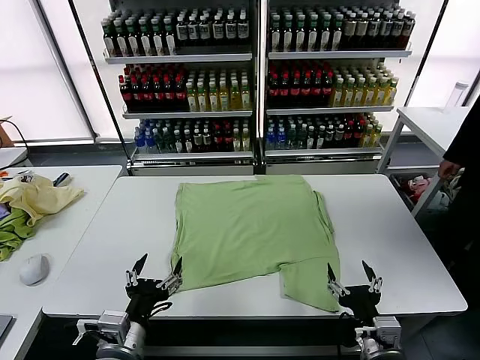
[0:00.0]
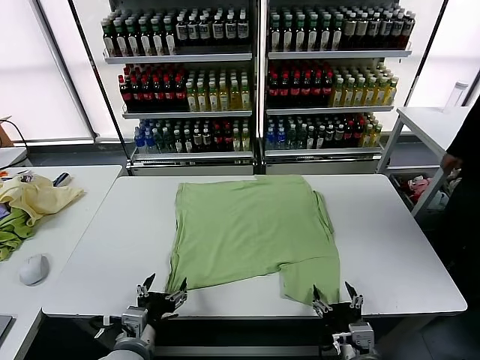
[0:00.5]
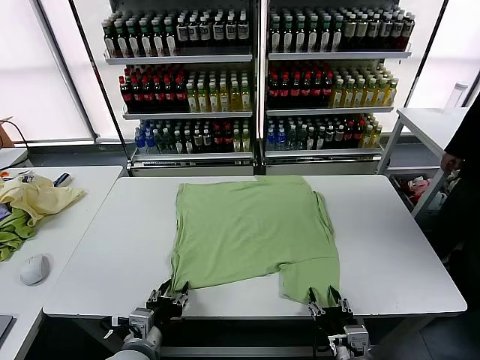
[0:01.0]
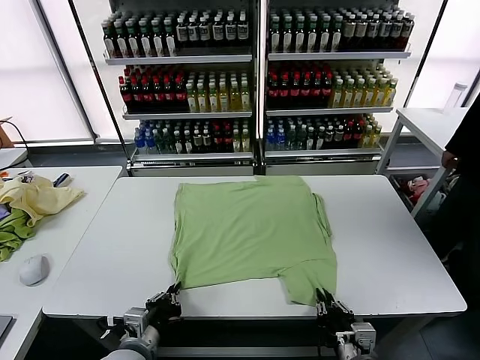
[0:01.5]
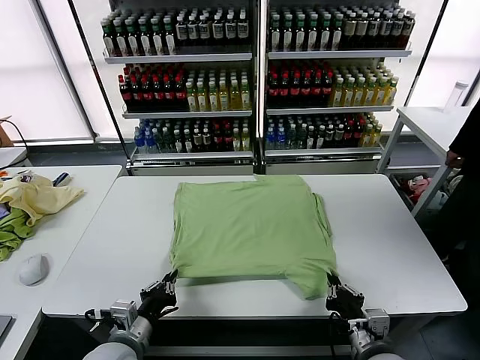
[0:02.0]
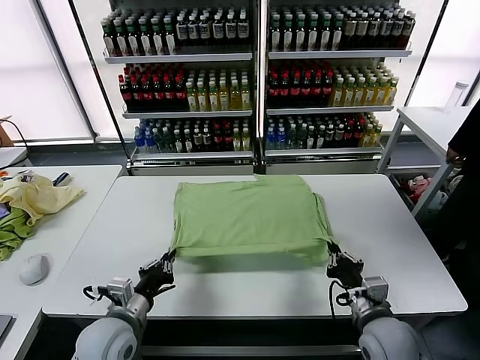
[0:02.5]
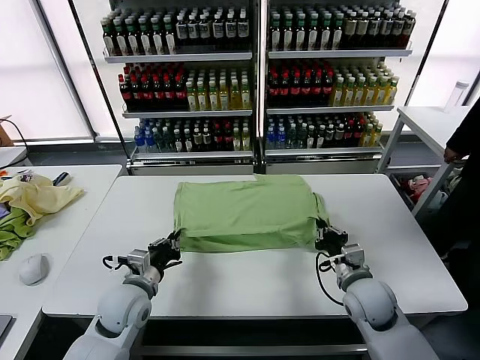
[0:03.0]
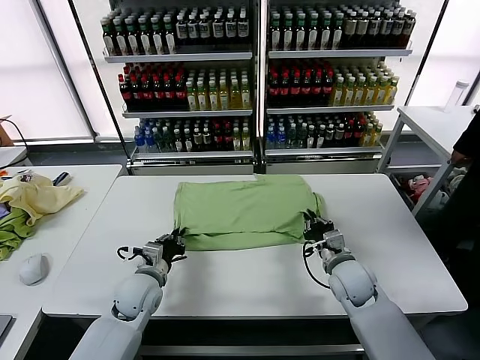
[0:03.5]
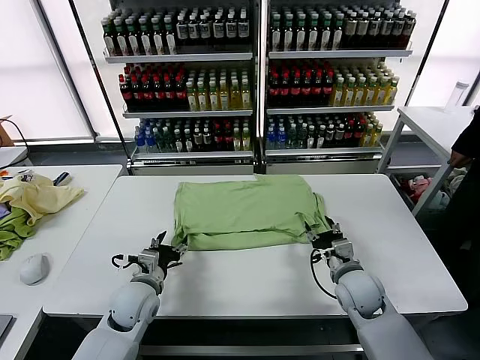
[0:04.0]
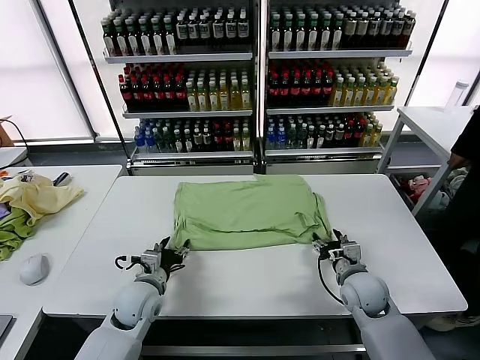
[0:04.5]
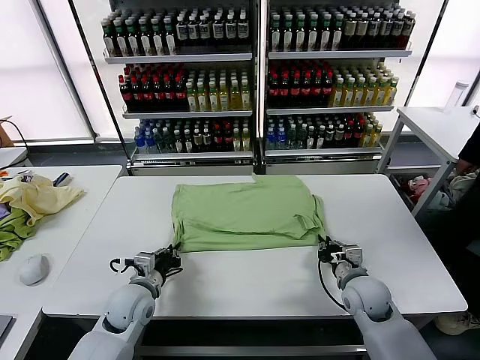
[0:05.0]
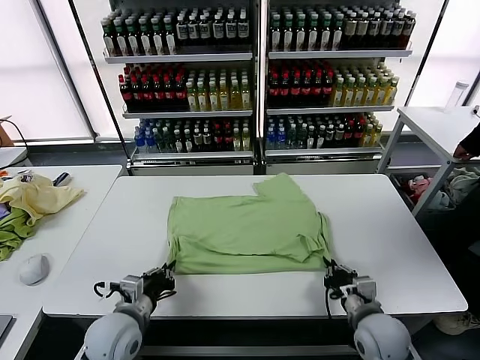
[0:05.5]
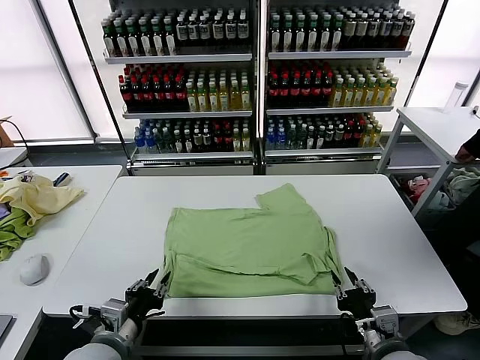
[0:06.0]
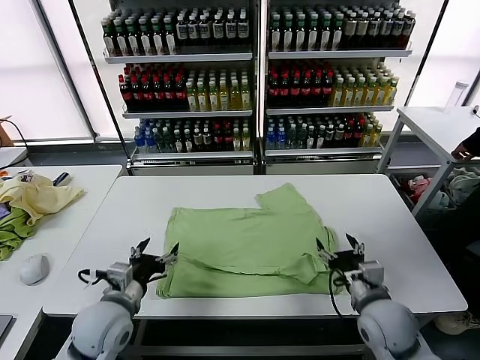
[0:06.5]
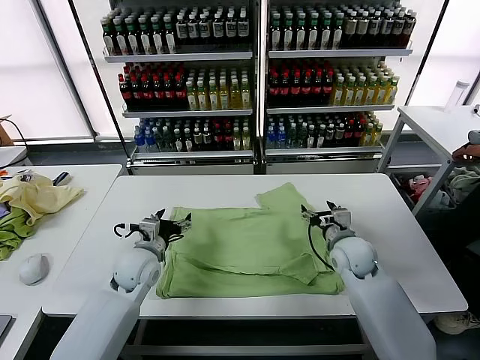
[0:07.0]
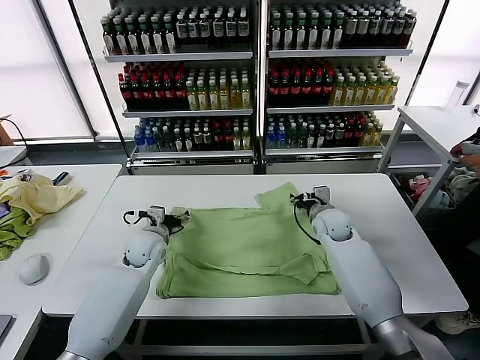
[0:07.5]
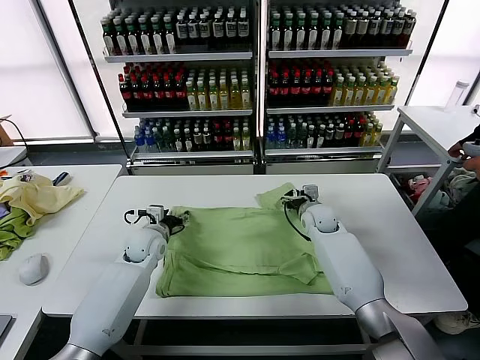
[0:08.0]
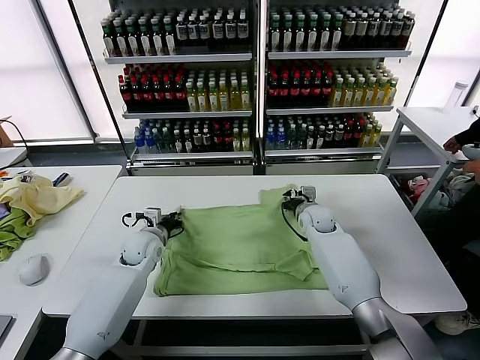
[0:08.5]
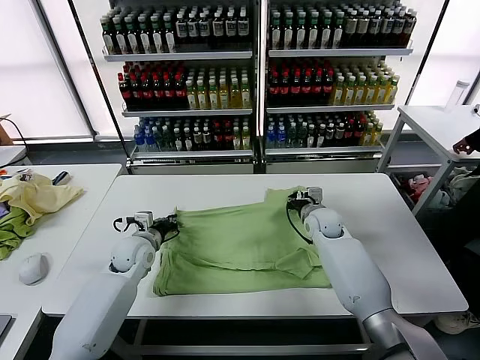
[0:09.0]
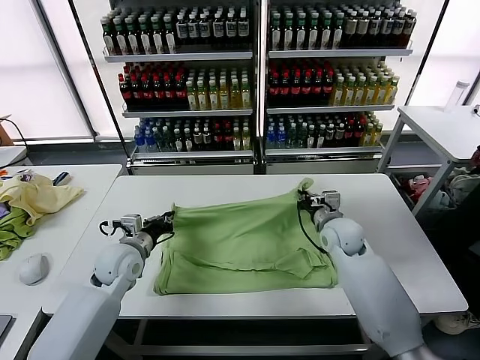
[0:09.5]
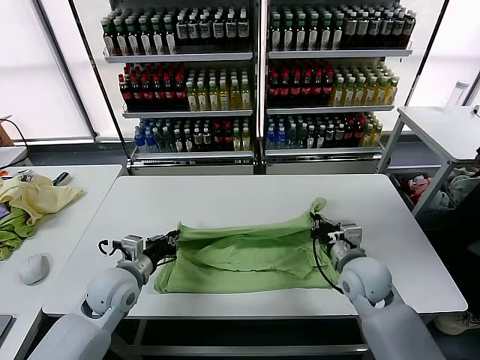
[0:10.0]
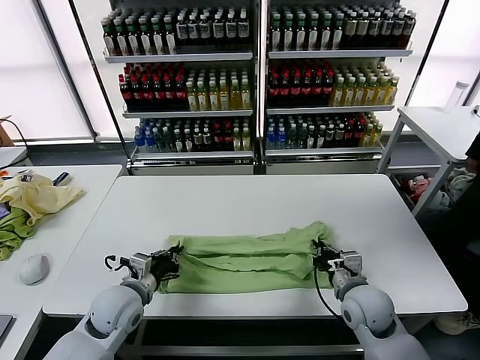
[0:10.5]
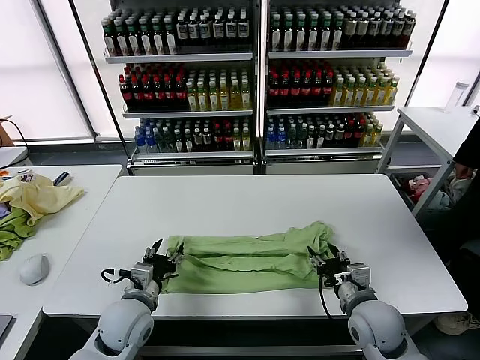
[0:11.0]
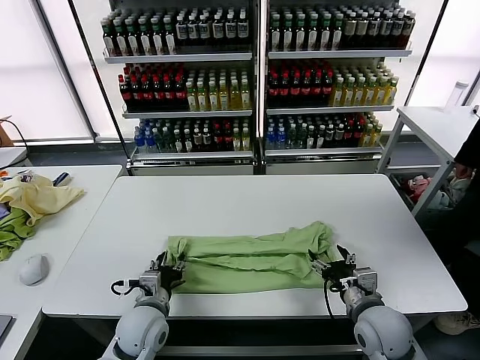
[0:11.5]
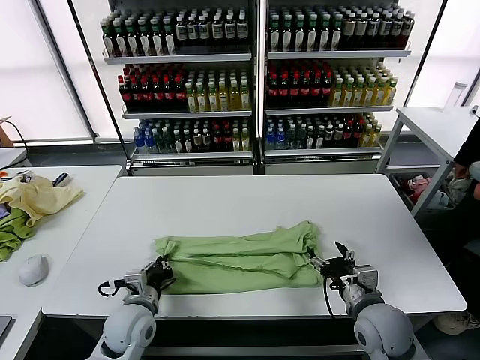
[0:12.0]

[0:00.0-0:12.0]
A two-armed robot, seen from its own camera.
Task of the whole recording: fold and organize the clothes.
Step, 0:00.0 to 0:01.5: use both grippers simultaneously to clamp the lower edge of the clothing fabric.
Step, 0:02.0 to 0:03.5: use both grippers to drag the lower edge of the fabric forward and fold it over the upper edge.
Step, 0:04.0 to 0:05.5: Drag the clothes downward with both gripper.
Step, 0:06.5 to 0:08.5: use both grippers simultaneously to clamp the upper edge of the clothing fabric.
Step, 0:09.0 to 0:10.5: use both grippers to drag the upper edge of the fabric backward and fold it over the lower edge.
Step, 0:11.0 to 0:11.5: use the left gripper to clamp the left edge of the fabric.
0:02.0 to 0:04.0: The two grippers go roughly 15 cm forward. The right gripper opens its fingers, while the left gripper opens up.
0:04.0 to 0:06.0: The two grippers go some 15 cm backward. The left gripper closes up. The right gripper closes its fingers.
0:06.0 to 0:08.0: The two grippers go some 35 cm forward. The left gripper opens.
0:08.0 to 0:10.0: The left gripper heads backward, covering roughly 15 cm, and closes, while the right gripper moves backward, roughly 20 cm, and closes its fingers.
0:10.0 to 0:12.0: The right gripper is displaced backward by some 10 cm, and opens. Meanwhile the left gripper is displaced downward and backward by some 10 cm, and opens, then closes once more.

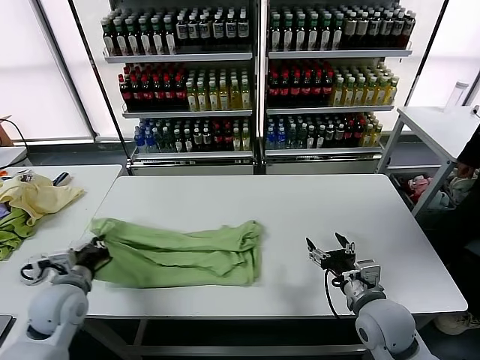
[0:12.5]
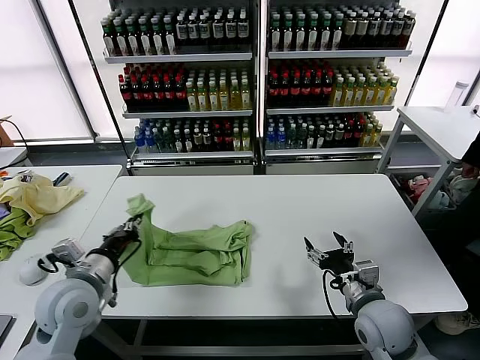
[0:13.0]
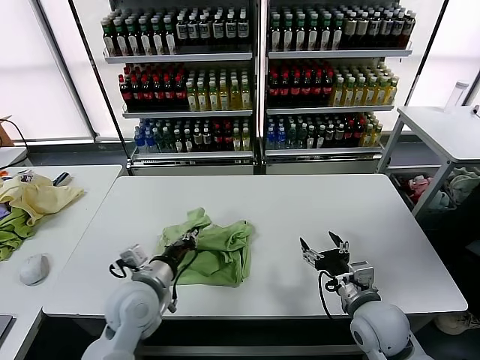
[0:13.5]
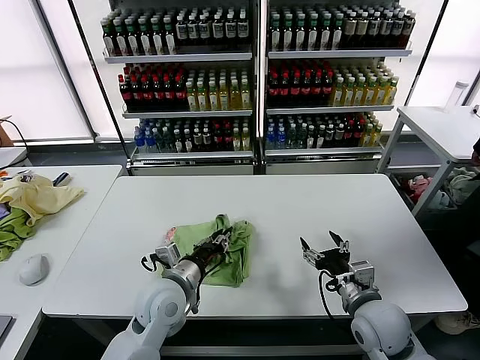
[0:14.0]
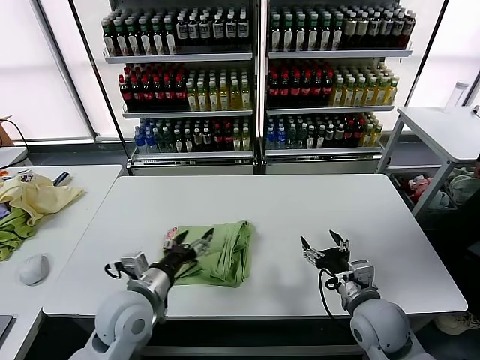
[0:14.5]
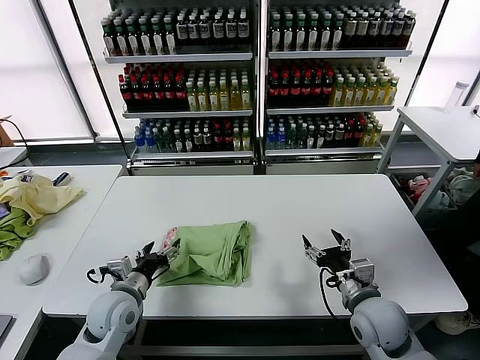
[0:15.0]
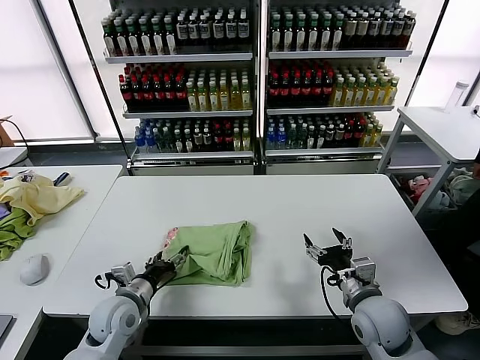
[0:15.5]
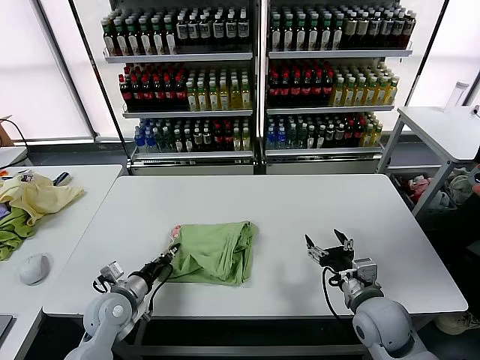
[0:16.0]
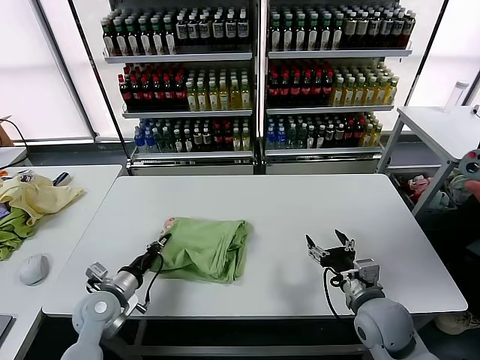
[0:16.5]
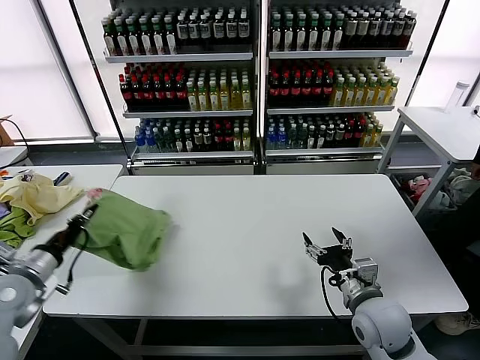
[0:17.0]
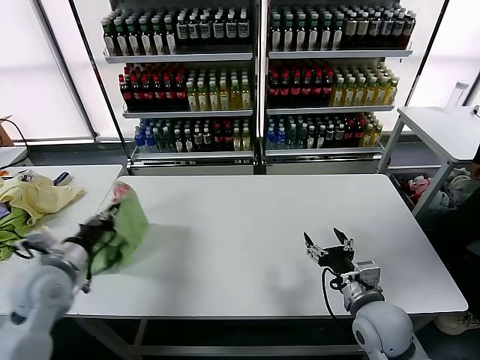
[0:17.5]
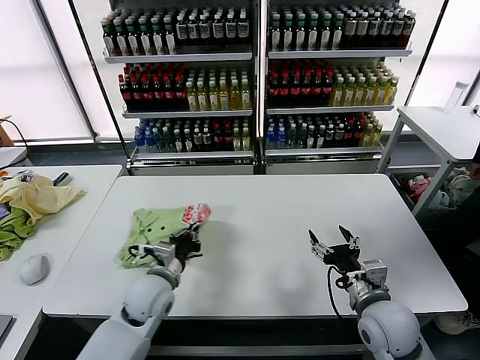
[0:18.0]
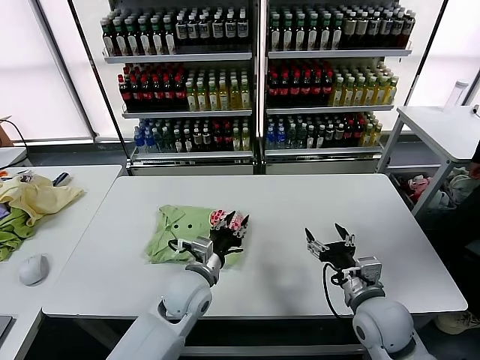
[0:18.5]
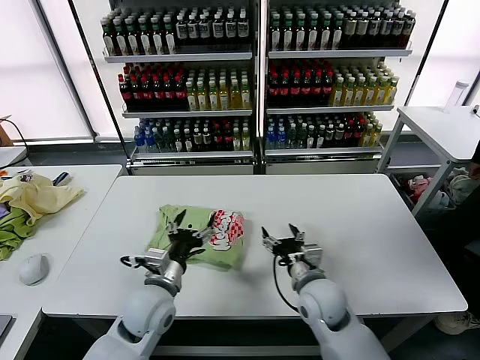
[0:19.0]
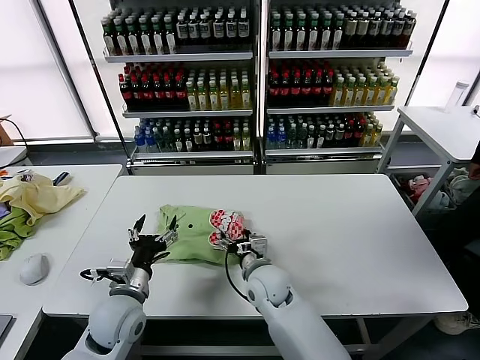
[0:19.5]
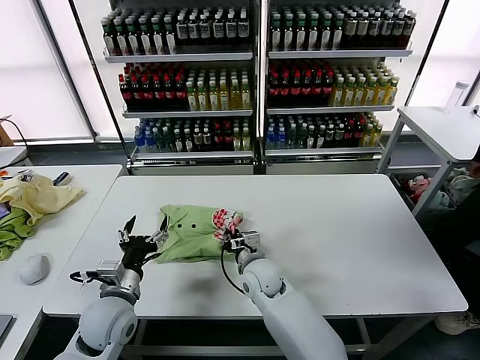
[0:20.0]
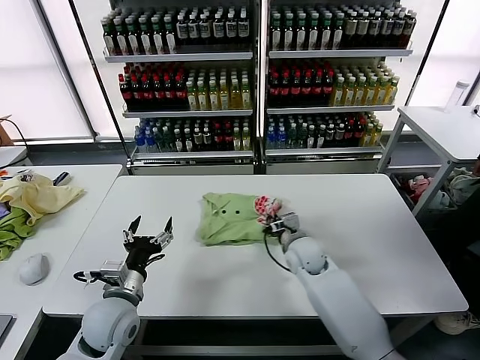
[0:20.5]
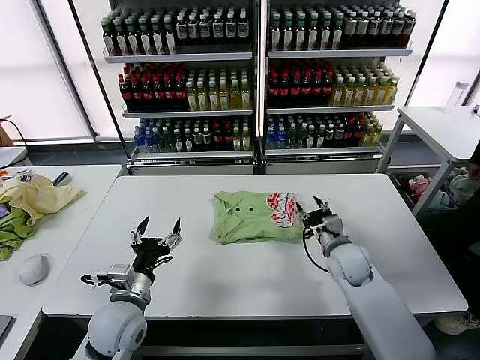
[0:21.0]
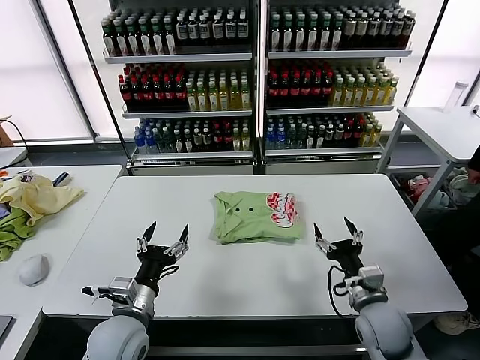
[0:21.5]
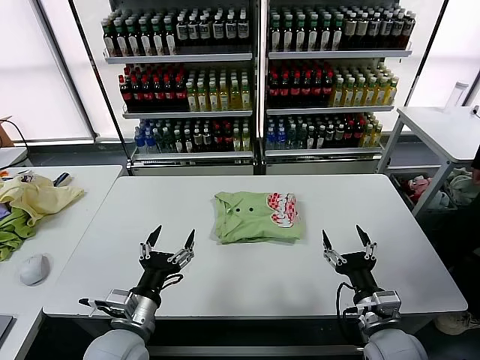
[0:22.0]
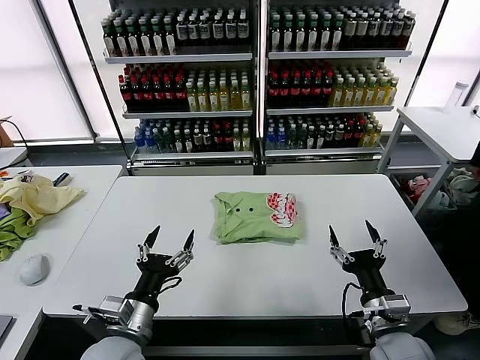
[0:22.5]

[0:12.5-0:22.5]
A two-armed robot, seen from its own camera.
Task of the whole recording: fold and organize the clothes.
Step, 0:12.5 to 0:14.0: use the left gripper to drag the left edge of the fabric to the left and folds it over the right edge.
Step, 0:14.5 to 0:18.0: Flip the folded clothes over with left gripper.
Step, 0:19.0 to 0:20.5: Drag the clothes to the center of the table.
0:12.5 to 0:14.5: The left gripper moves to the right, roughly 15 cm, and opens its fingers.
0:14.5 to 0:16.5: The left gripper is displaced to the left and downward by about 15 cm, and closes up.
0:16.5 to 0:18.5: The left gripper heads to the right, covering about 20 cm, and opens.
0:18.5 to 0:20.5: The right gripper goes approximately 20 cm forward and to the left, and closes its fingers. Meanwhile the left gripper shifts roughly 15 cm to the left and backward, and opens.
0:20.5 to 0:22.5: The right gripper heads backward and to the right, covering about 25 cm, and opens up; the left gripper heads backward, covering approximately 10 cm.

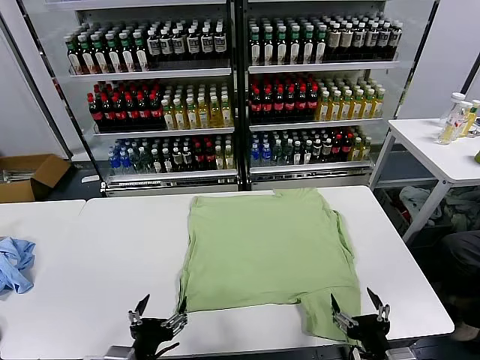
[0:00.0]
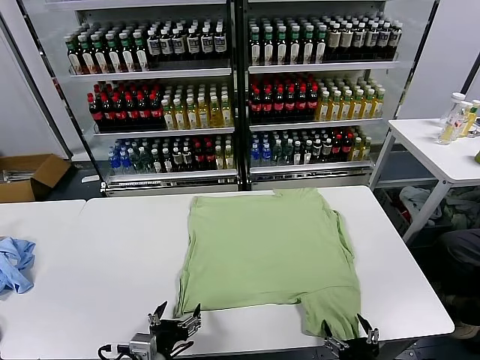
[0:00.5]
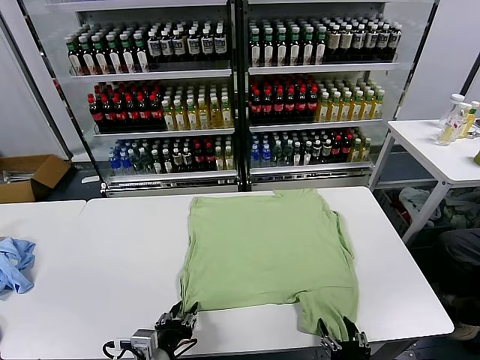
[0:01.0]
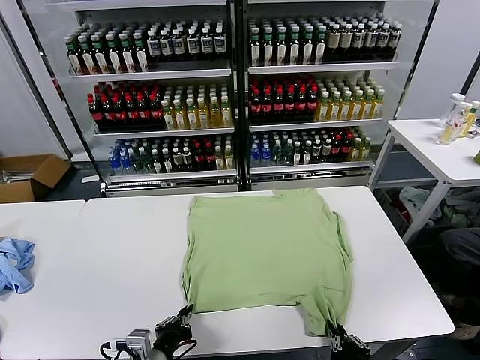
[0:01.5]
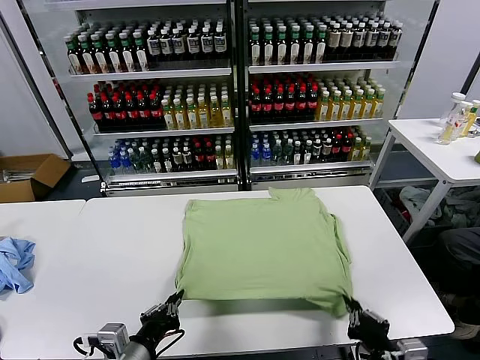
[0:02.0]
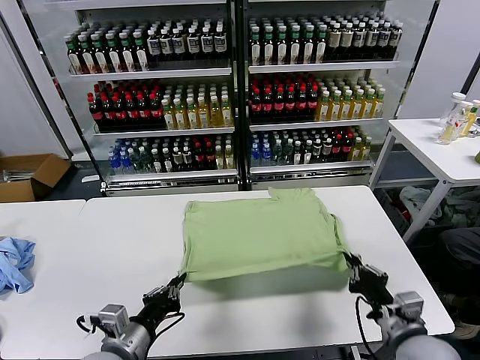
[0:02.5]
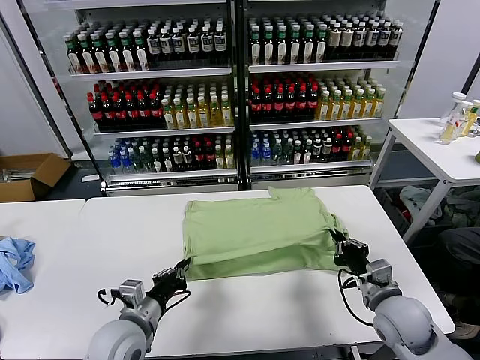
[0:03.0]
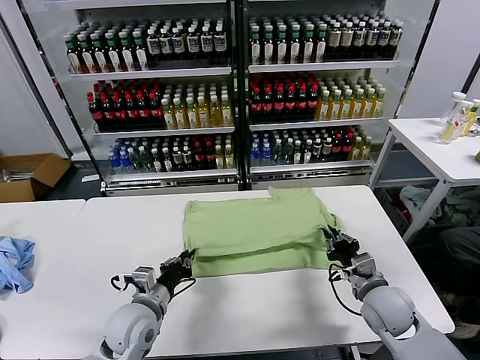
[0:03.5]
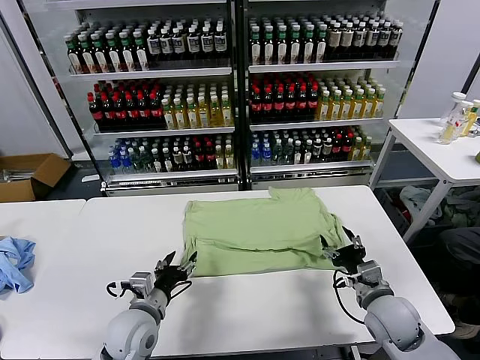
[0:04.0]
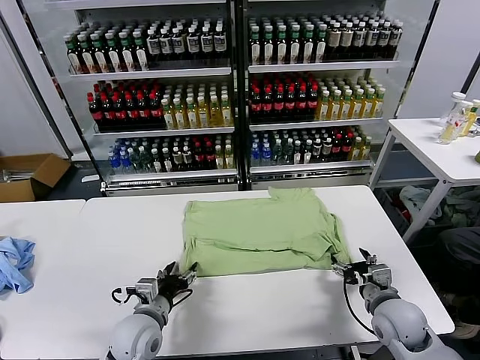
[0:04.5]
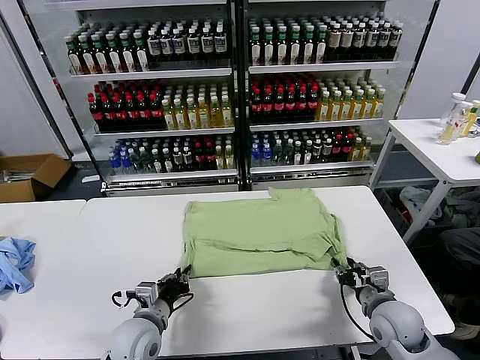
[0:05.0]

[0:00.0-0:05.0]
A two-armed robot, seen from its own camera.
Task of the whole recording: fold and organize the clothes.
Step, 0:00.0 to 0:01.5: use both grippers simultaneously to clamp the lower edge of the clothing fabric.
Step, 0:02.0 to 0:03.5: use both grippers to drag the lower edge of the fabric forward and fold it over the upper edge.
0:02.5 to 0:05.0: The two grippers go about 10 cm forward and downward. The right gripper opens and closes again. Meanwhile the left gripper opens, then closes again.
